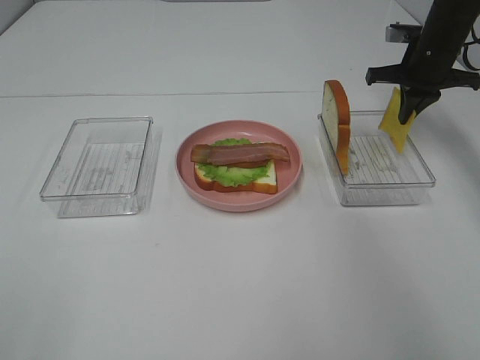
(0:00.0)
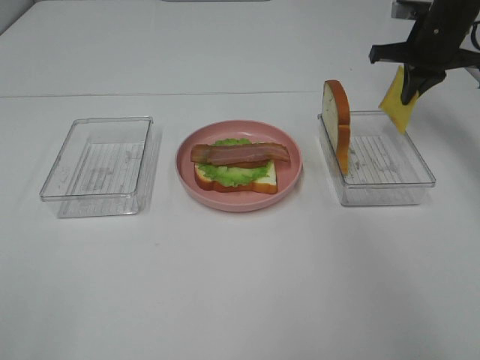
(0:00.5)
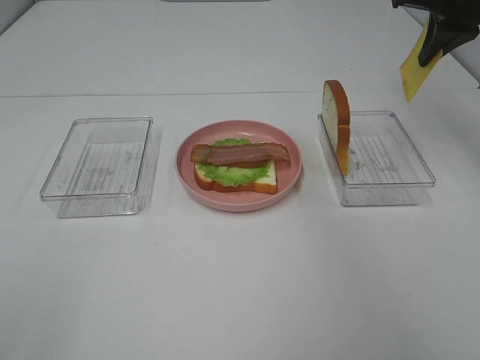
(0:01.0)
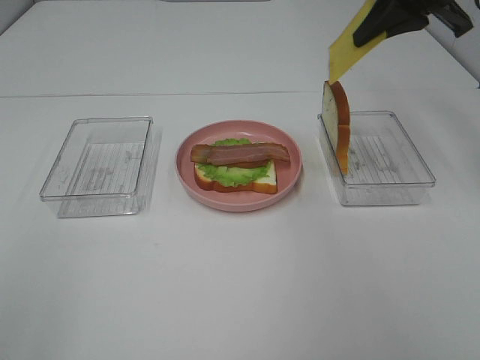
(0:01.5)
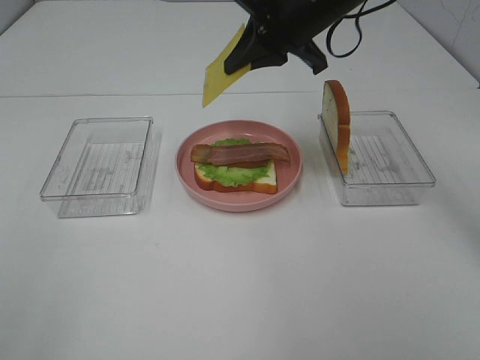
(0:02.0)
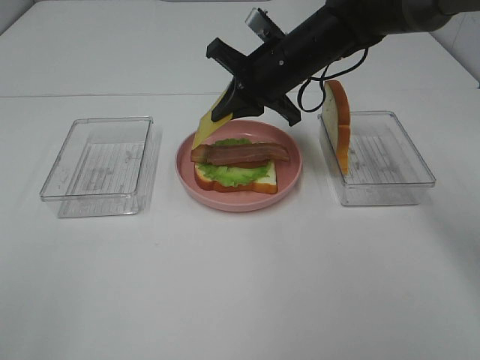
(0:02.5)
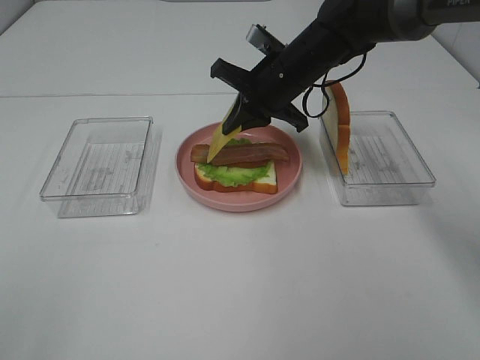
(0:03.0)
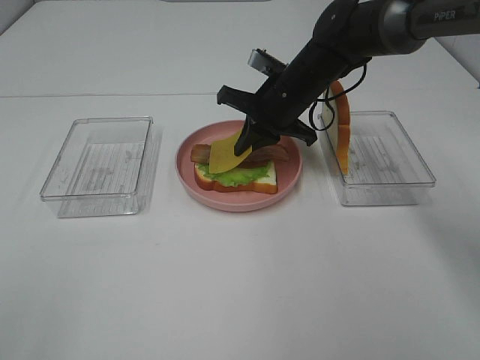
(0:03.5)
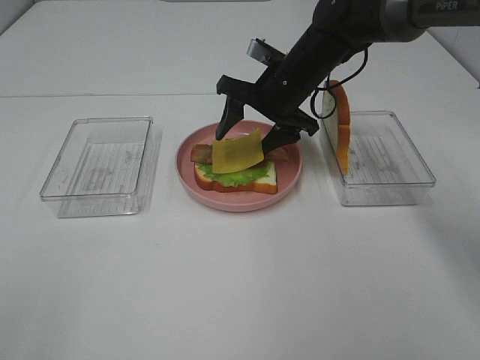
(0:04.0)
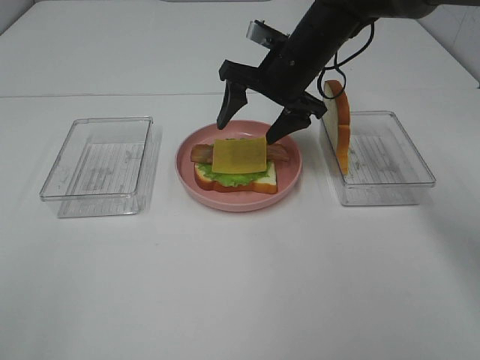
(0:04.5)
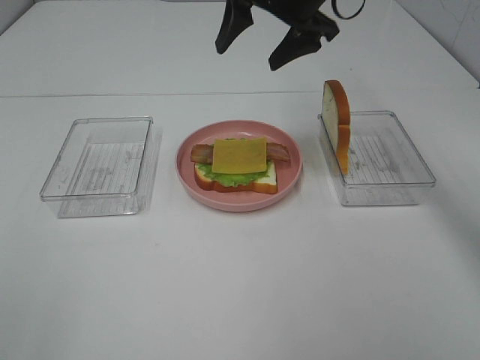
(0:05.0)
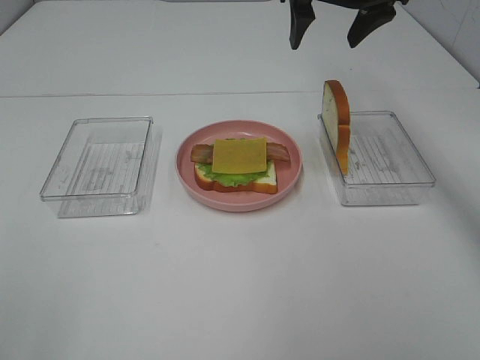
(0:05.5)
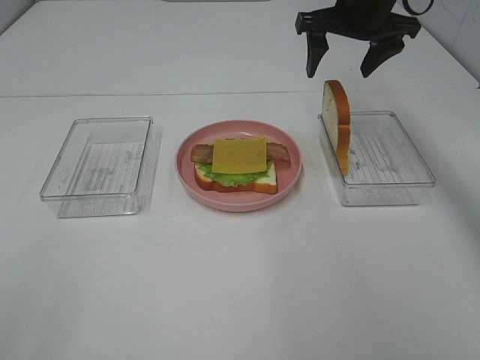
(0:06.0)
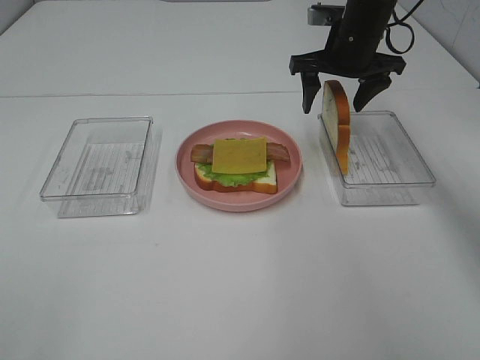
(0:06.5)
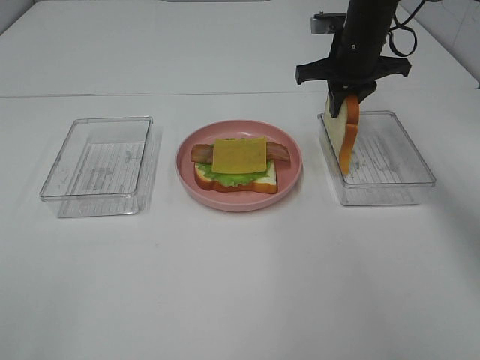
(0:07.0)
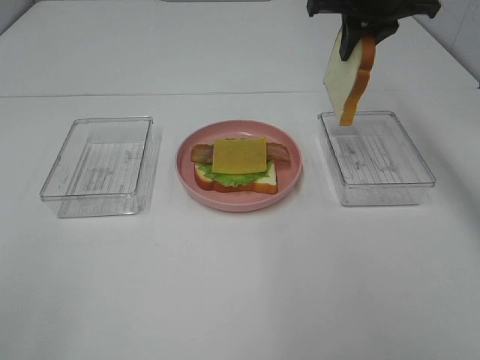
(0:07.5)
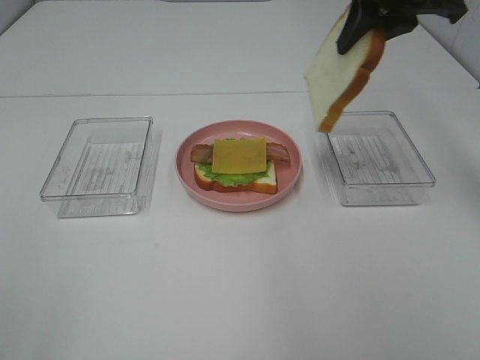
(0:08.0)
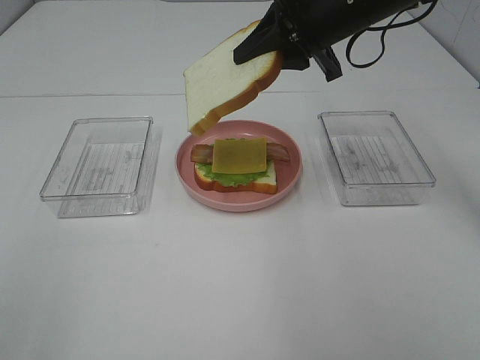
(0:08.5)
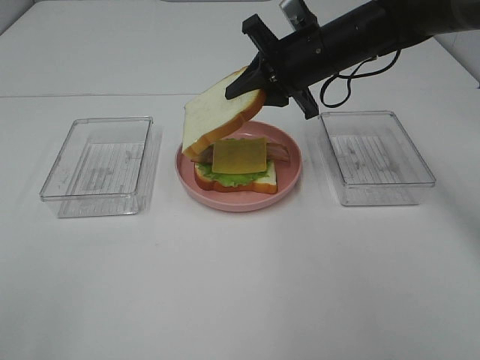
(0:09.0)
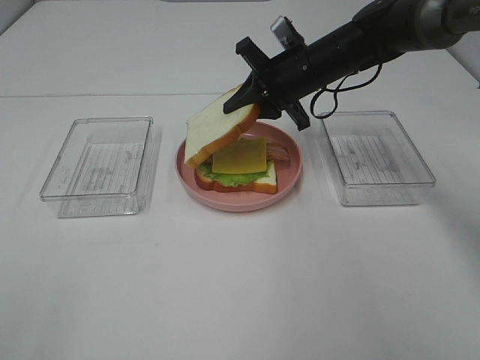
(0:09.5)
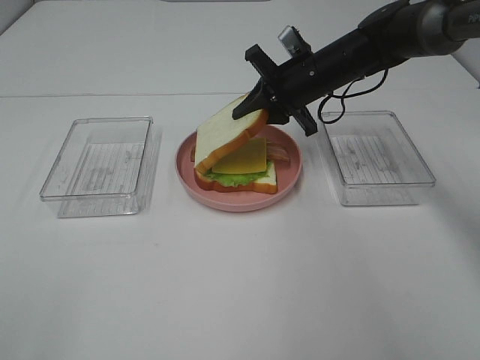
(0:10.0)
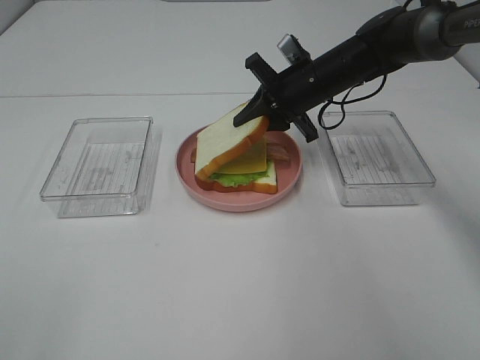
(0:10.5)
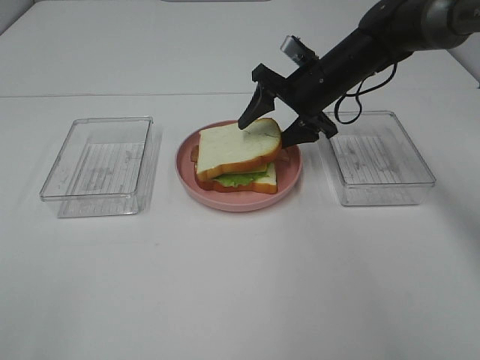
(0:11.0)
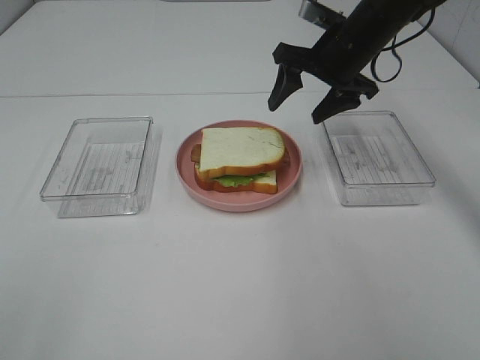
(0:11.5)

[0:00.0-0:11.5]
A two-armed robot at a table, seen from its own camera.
Task of the whole recording: Make sandwiches.
Step, 0:00.0 to 0:04.5: Right hand:place the cheese slice on top of the bacon.
Step, 0:05.0 to 0:07.0: Right hand:grab the bread slice.
Step, 0:07.5 to 0:11.0: Right hand:place the bread slice on the cheese slice.
0:00.0 to 0:02.0: The right gripper is displaced to the left, backward and upward by about 25 cm.
0:02.0 to 0:04.0: The right gripper moves downward, about 10 cm, and opens up.
0:04.0 to 0:06.0: The right gripper moves upward and to the right, about 15 cm.
0:06.0 to 0:07.5: The right gripper closes up.
0:07.5 to 0:09.5: The right gripper travels downward and to the left by roughly 15 cm.
0:09.5 to 0:11.5: The right gripper is displaced upward by about 5 cm, and opens.

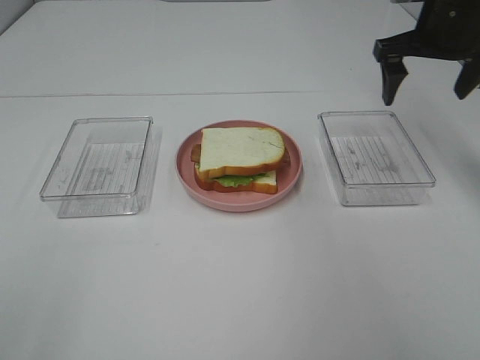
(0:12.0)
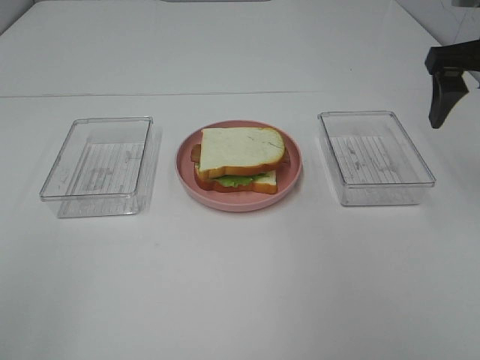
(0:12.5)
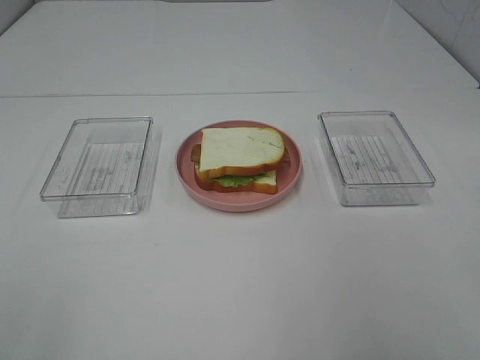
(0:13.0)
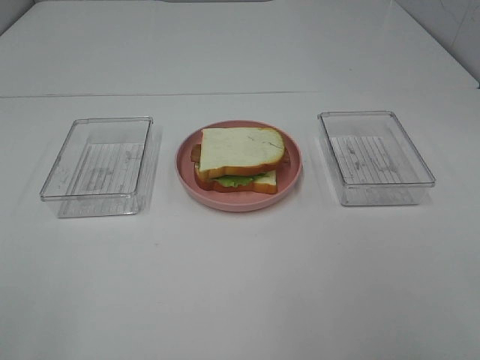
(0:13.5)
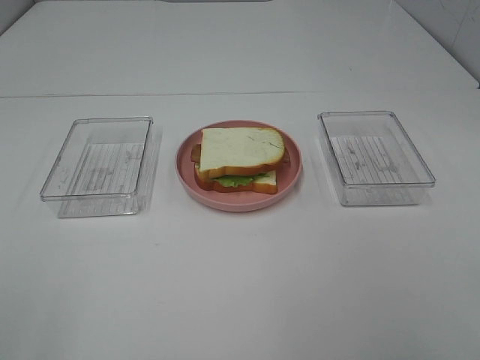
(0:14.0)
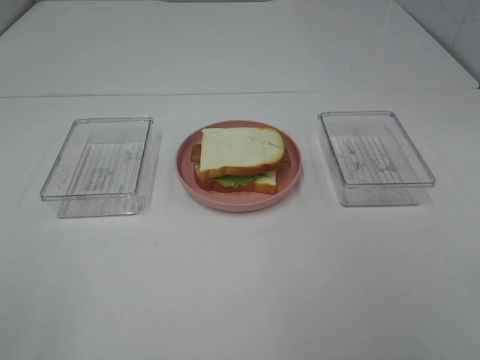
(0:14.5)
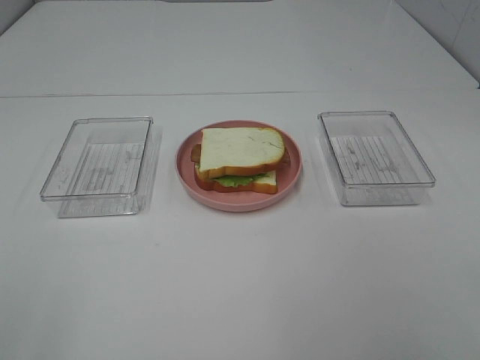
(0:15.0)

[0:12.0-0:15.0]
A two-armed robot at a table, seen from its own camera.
Task of the whole recording: Make sandwiches.
0:12.0 to 0:13.5: The right gripper heads backward, covering roughly 40 cm.
0:13.5 to 0:15.0: Neither gripper changes place.
